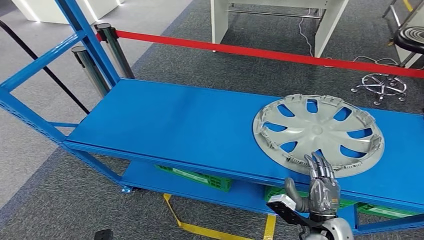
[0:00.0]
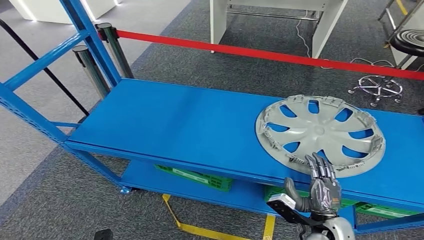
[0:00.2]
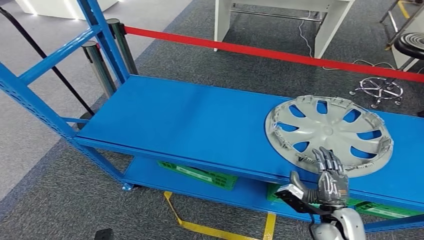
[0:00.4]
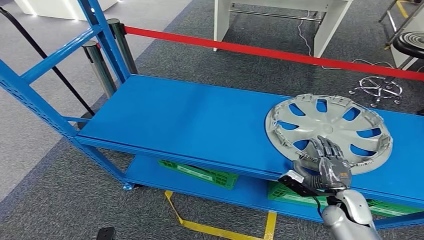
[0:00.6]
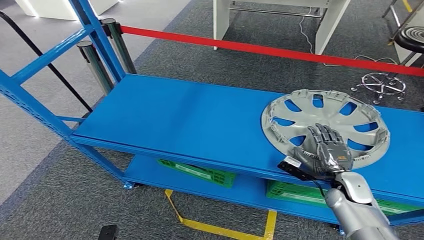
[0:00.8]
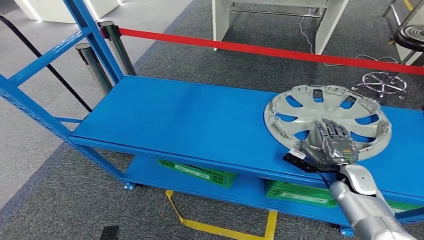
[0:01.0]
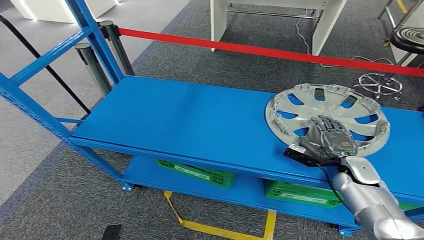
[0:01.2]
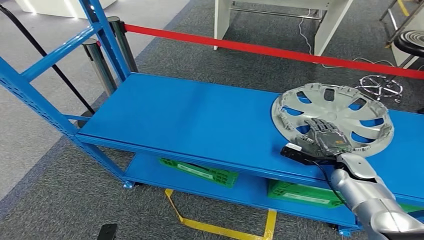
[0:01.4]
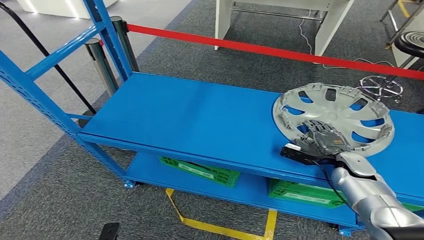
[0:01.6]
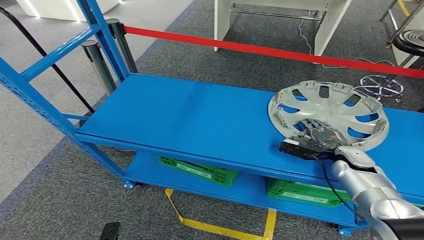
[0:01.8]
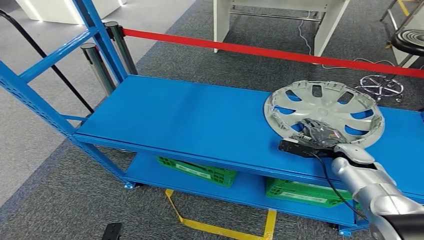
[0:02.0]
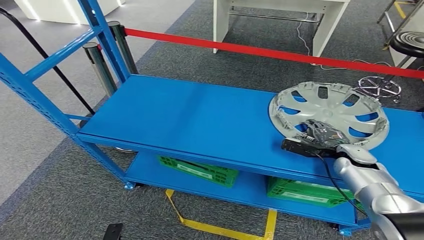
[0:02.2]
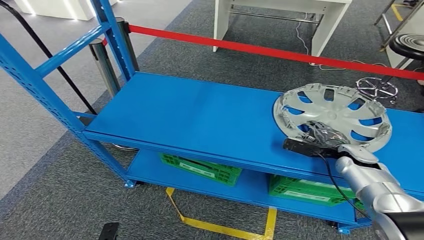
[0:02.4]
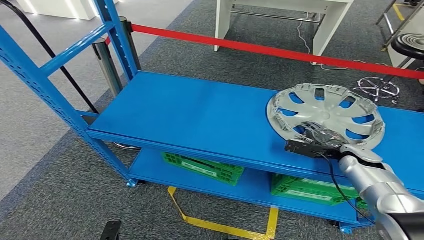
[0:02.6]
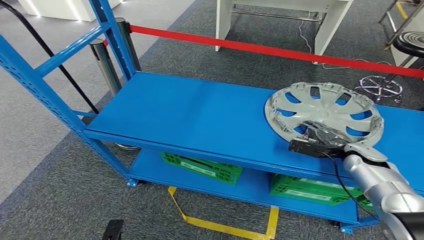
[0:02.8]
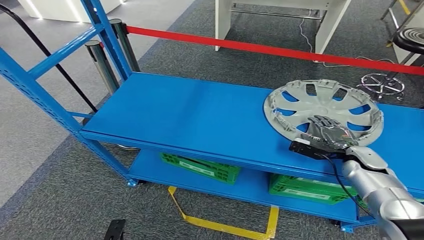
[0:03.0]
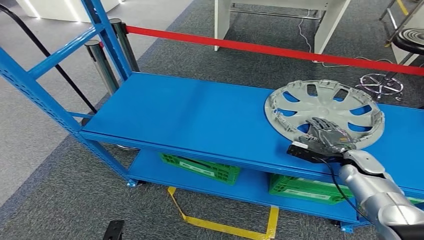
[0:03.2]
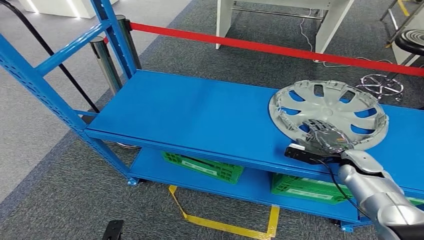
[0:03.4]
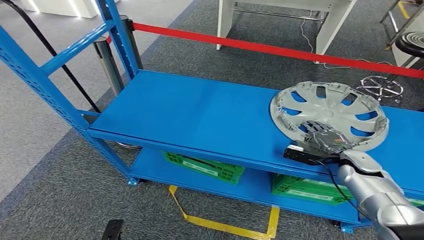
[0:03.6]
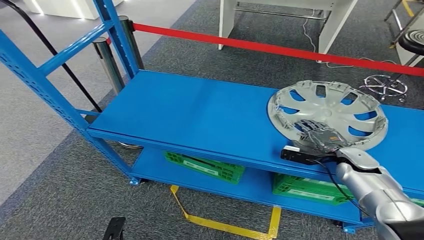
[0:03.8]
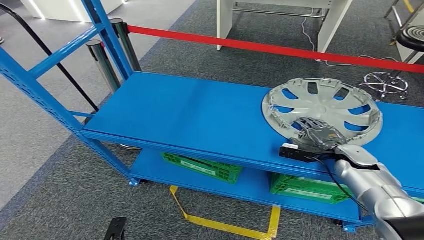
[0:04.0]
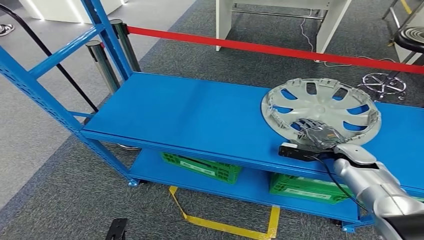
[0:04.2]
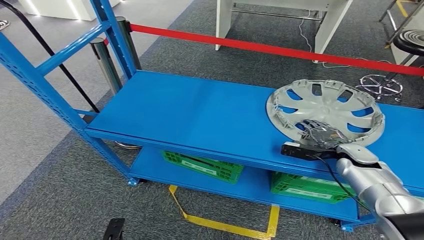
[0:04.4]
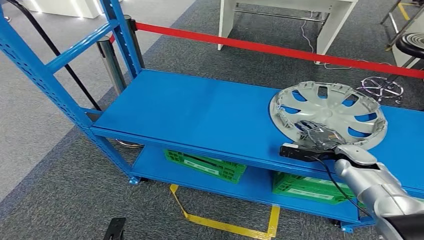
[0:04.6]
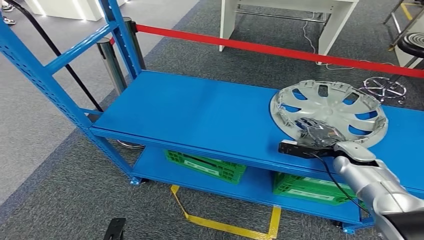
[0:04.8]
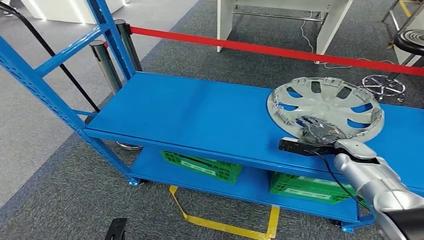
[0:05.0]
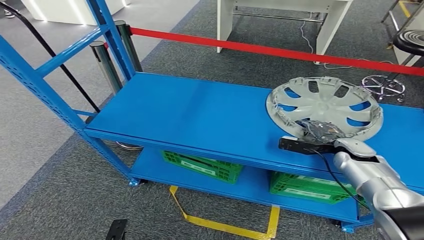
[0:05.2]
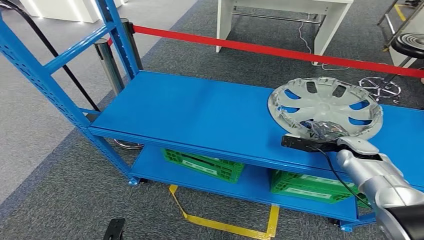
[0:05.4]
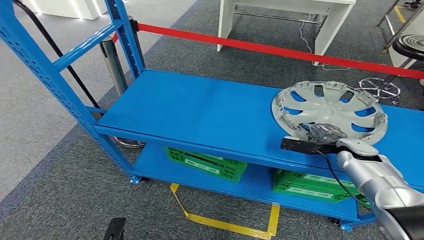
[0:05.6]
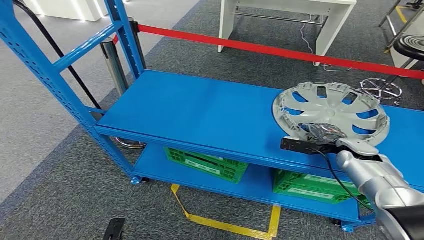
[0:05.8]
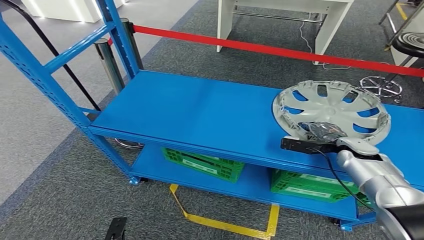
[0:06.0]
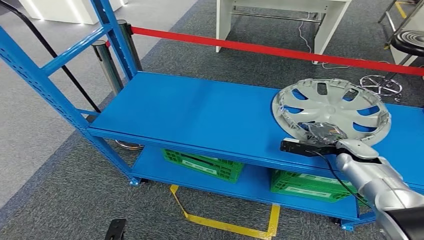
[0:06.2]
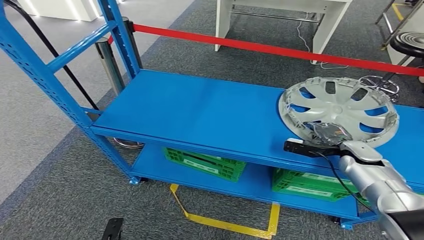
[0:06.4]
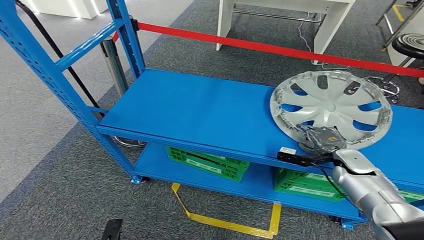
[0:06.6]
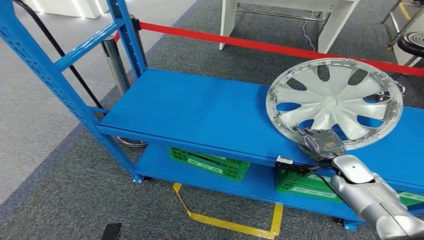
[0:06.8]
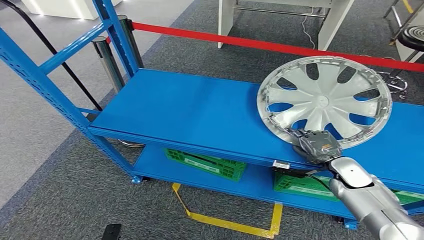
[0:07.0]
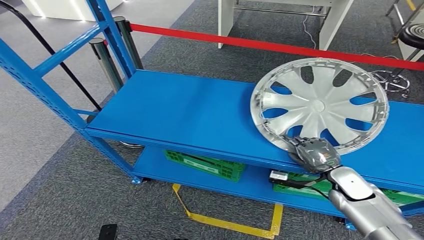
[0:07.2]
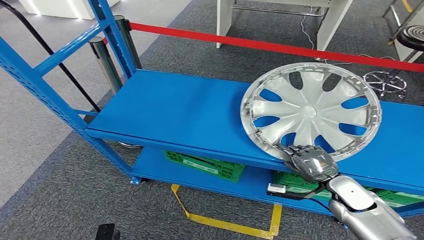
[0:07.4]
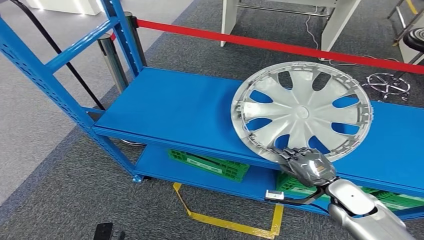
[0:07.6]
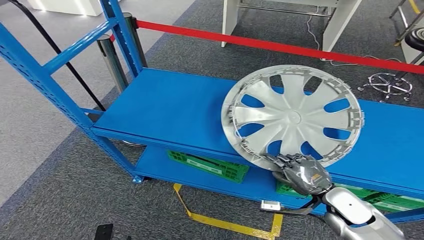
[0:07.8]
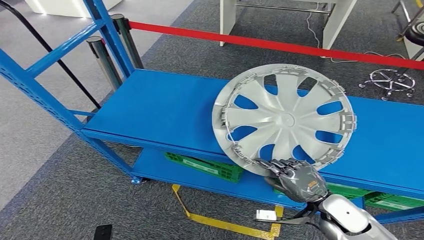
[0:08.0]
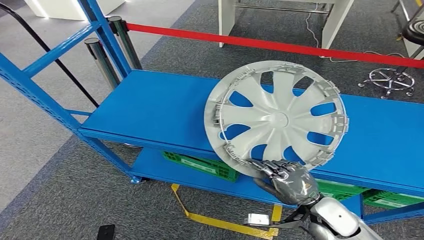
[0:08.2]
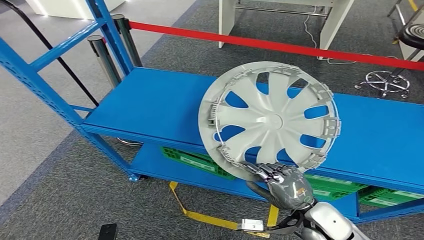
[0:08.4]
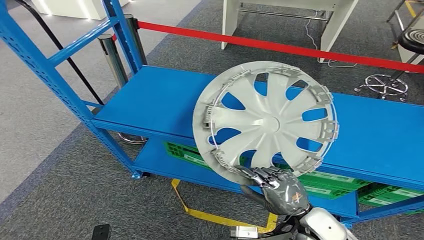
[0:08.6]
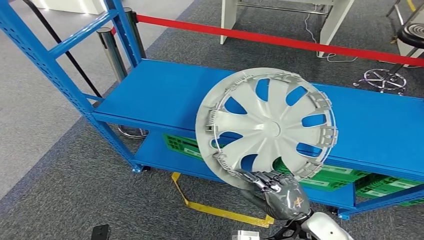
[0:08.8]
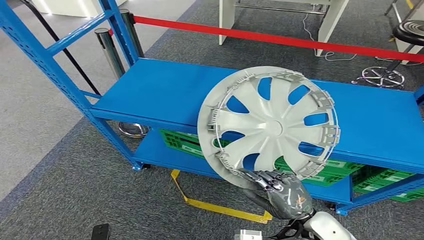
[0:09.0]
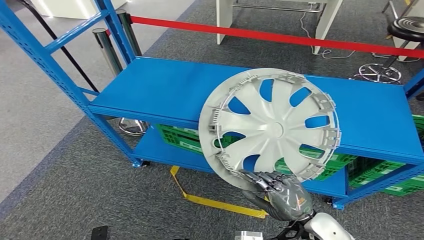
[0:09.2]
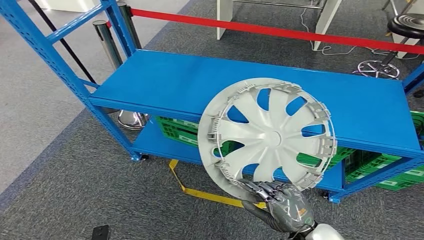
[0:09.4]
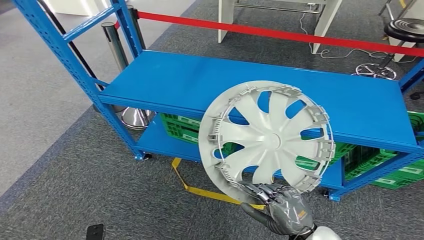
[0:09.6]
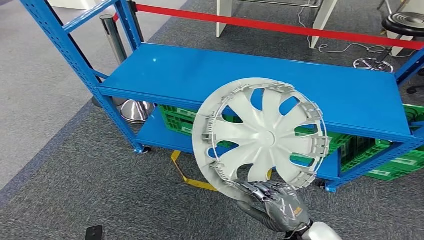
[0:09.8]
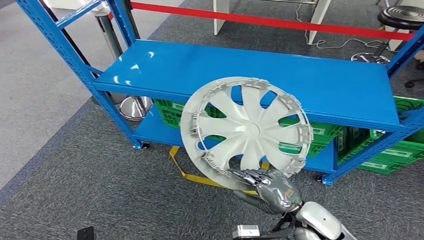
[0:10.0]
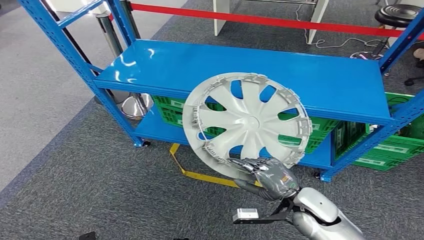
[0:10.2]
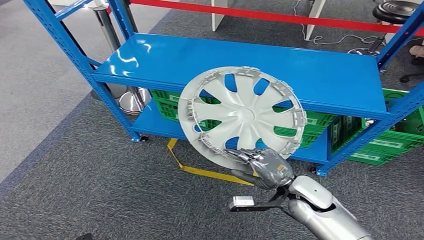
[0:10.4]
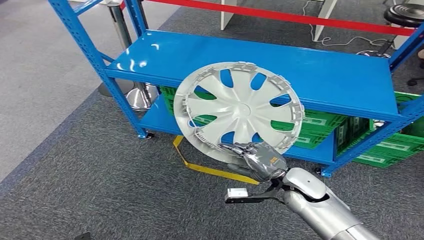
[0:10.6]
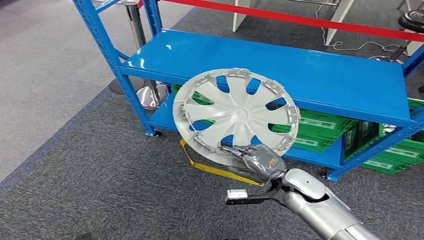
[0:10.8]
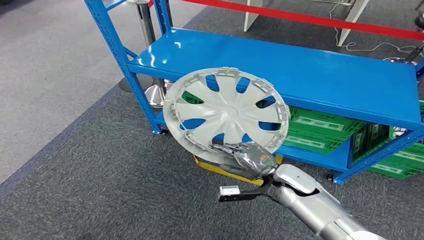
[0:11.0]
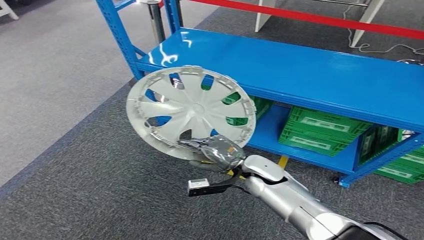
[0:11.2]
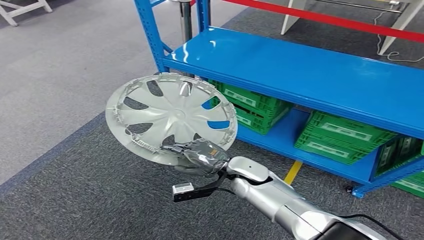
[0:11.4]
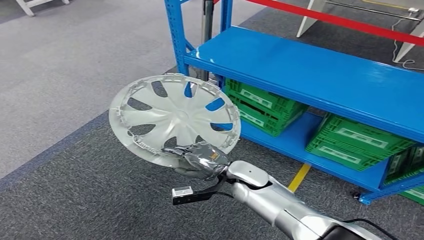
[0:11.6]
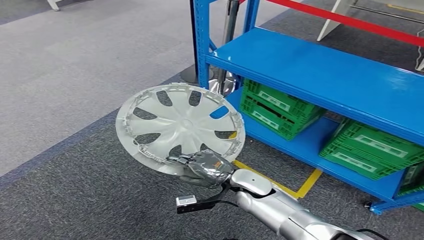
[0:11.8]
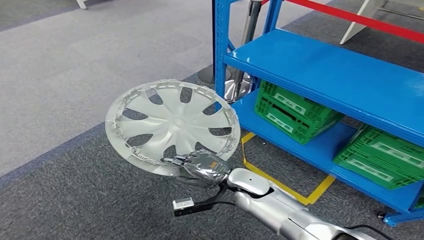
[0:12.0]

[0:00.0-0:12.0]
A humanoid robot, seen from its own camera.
Step, 0:00.0 to 0:08.4: Pick up the small component from the shelf.
0:01.6 to 0:06.0: The hands make only small movements.

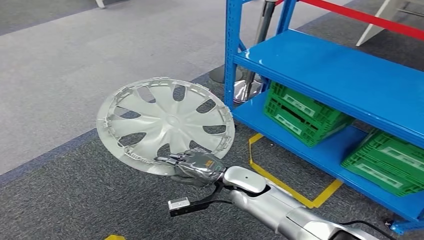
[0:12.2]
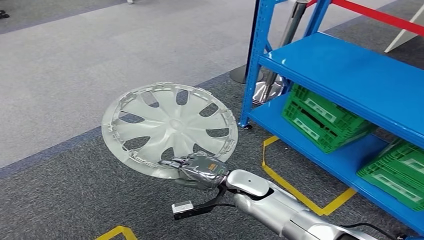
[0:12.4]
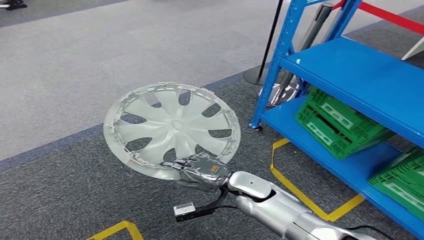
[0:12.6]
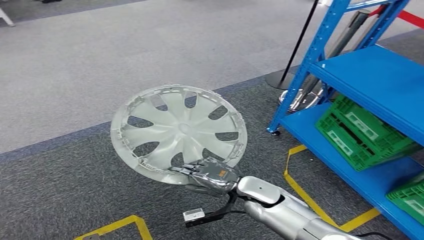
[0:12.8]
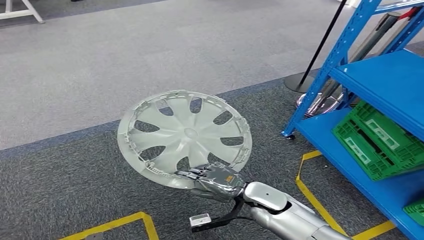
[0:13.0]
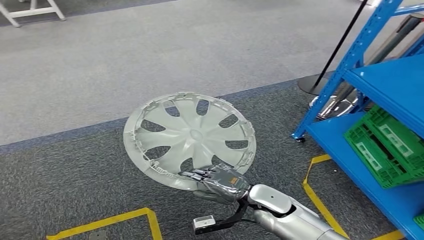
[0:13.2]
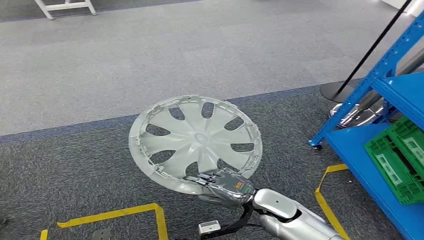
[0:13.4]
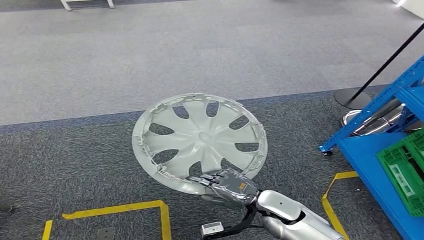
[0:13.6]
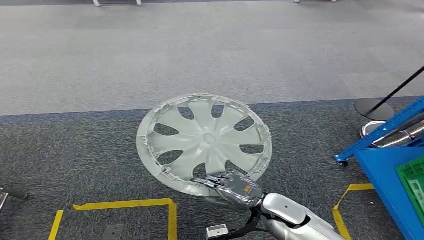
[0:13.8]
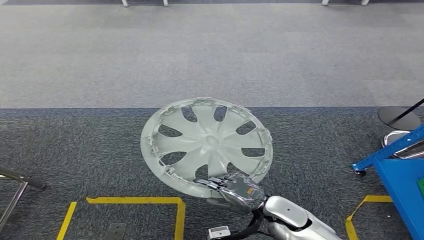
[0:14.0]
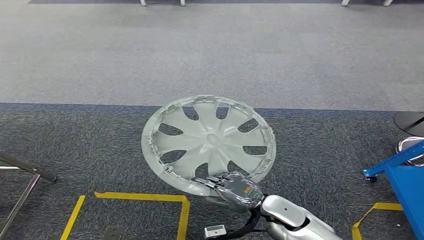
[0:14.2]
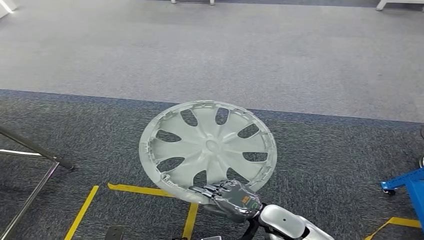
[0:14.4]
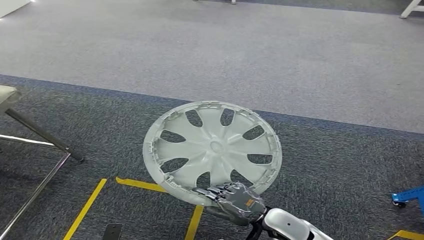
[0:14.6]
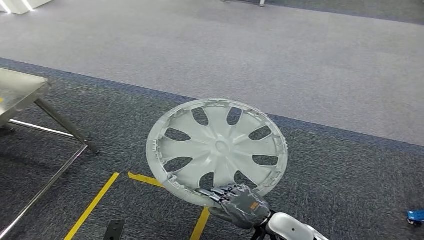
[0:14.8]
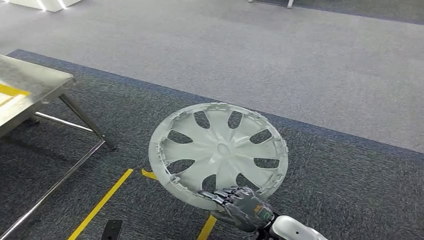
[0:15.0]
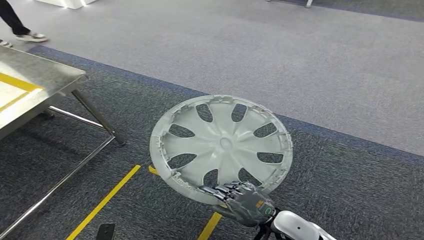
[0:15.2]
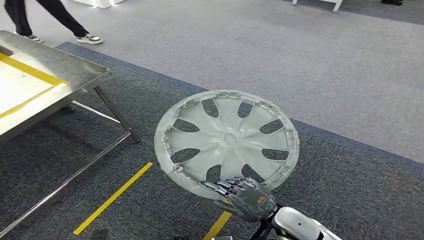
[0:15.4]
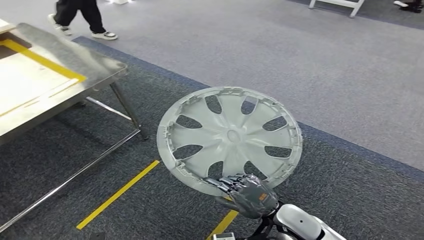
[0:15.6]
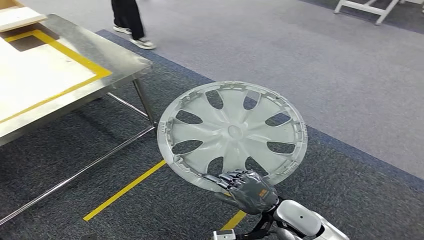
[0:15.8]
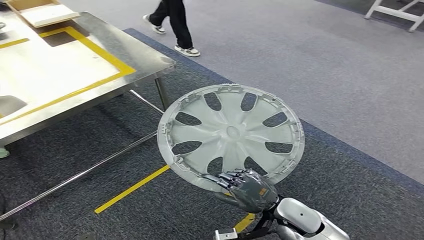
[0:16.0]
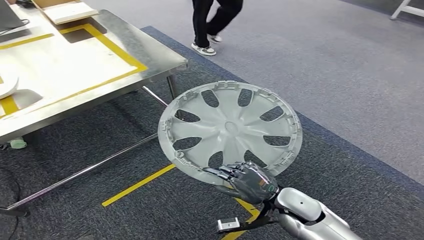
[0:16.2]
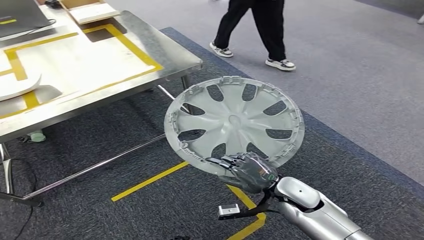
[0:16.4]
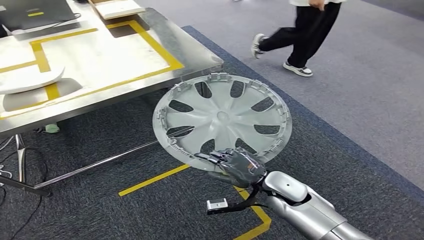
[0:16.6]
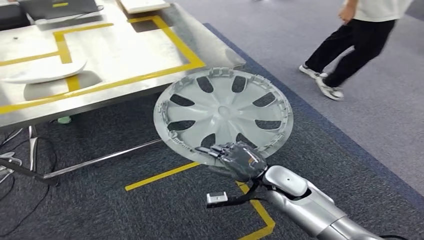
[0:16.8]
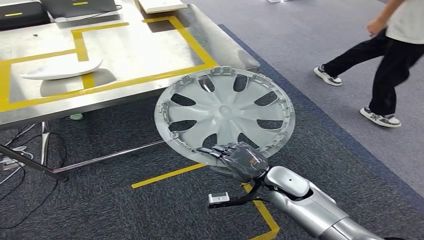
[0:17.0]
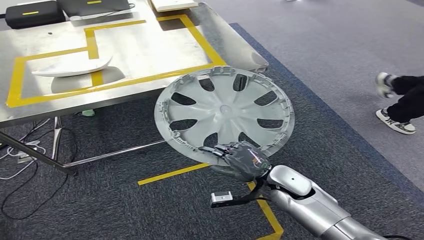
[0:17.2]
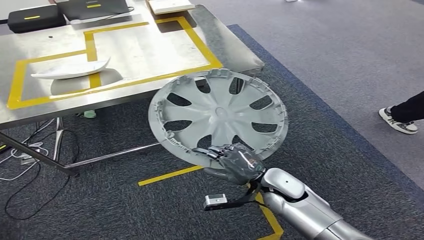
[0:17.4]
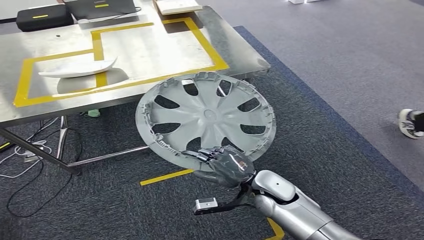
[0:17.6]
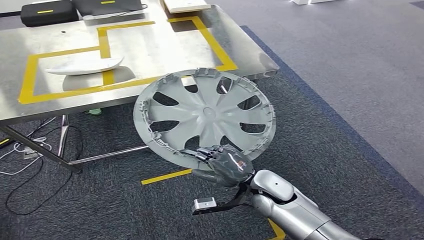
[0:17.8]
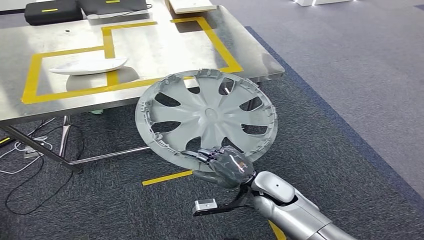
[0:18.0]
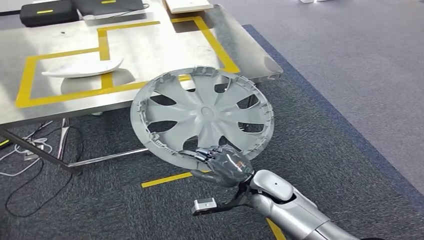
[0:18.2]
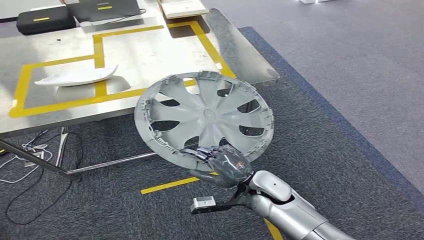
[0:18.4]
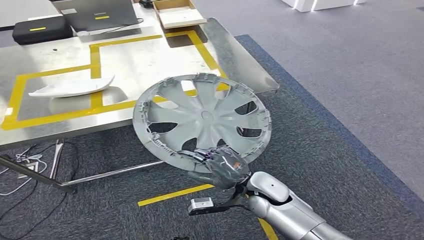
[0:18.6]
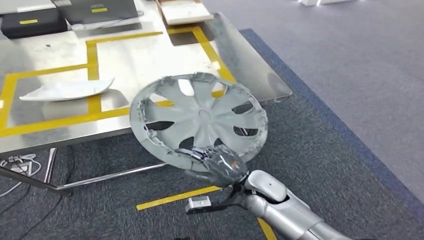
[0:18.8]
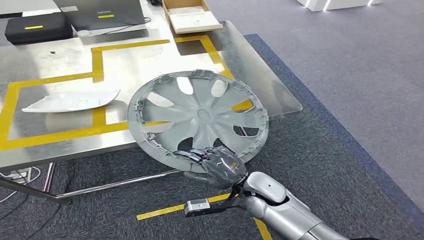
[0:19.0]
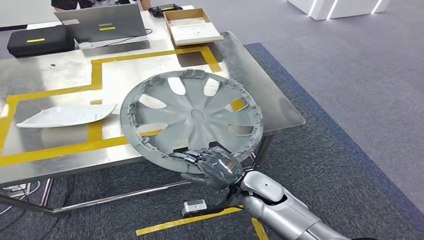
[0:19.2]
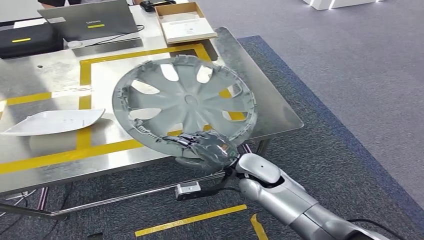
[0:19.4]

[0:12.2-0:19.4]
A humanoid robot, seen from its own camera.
Step, 0:12.2 to 0:17.8: Move the small component to the workbench.
